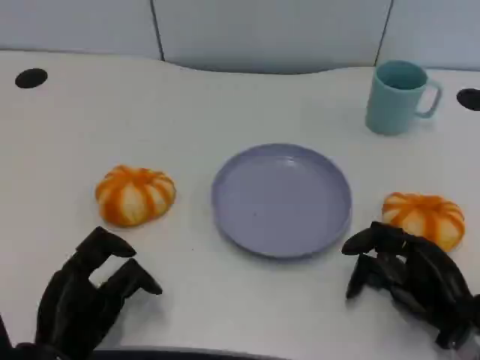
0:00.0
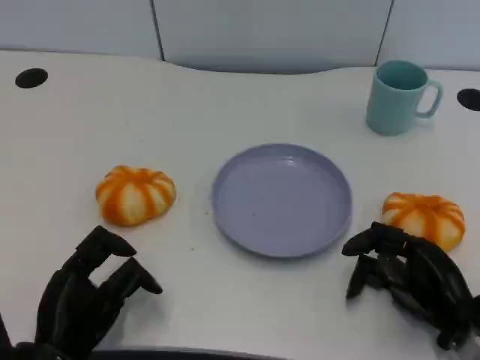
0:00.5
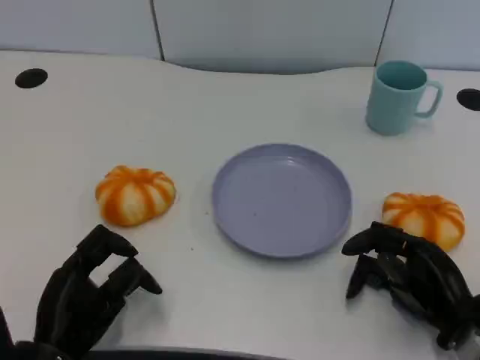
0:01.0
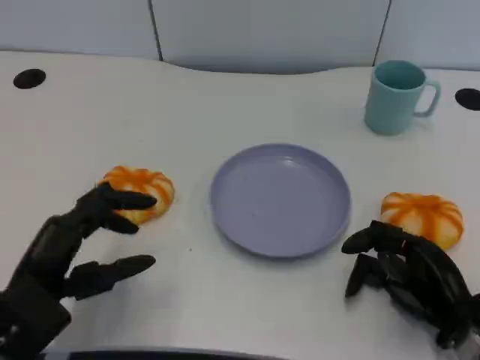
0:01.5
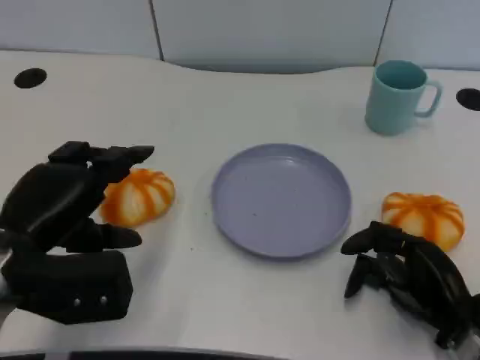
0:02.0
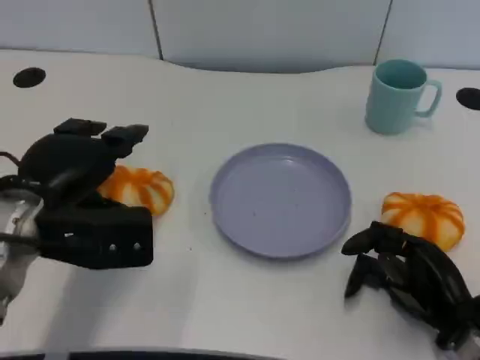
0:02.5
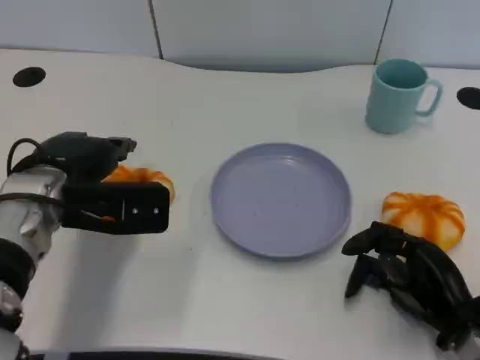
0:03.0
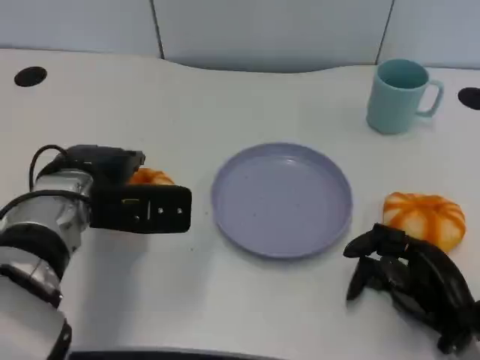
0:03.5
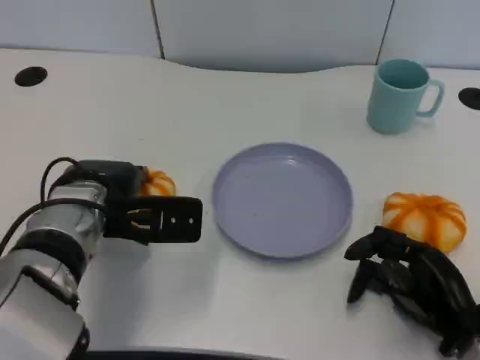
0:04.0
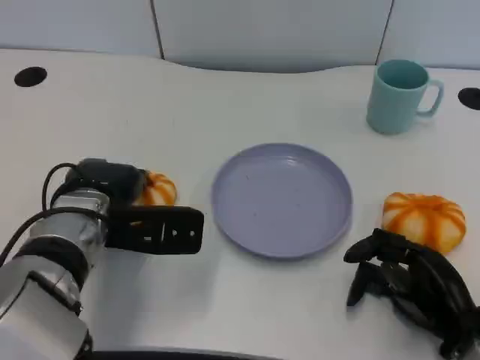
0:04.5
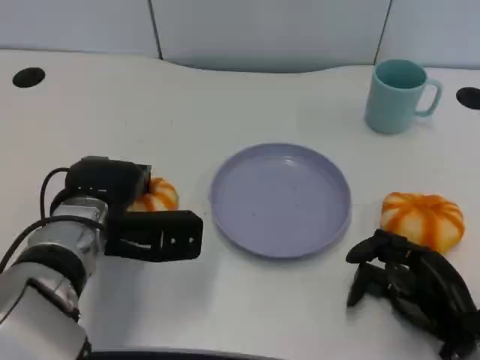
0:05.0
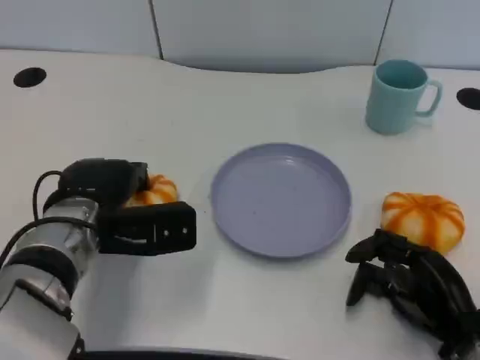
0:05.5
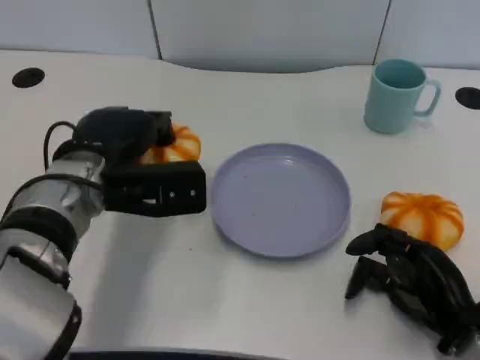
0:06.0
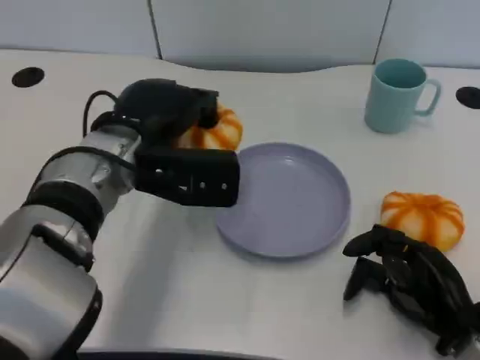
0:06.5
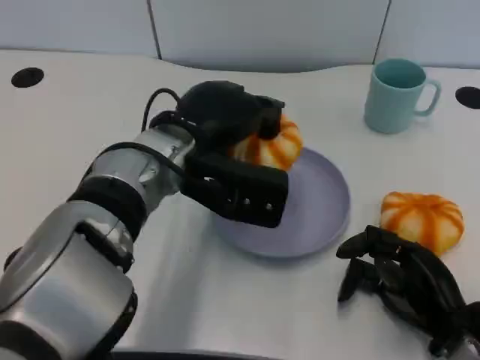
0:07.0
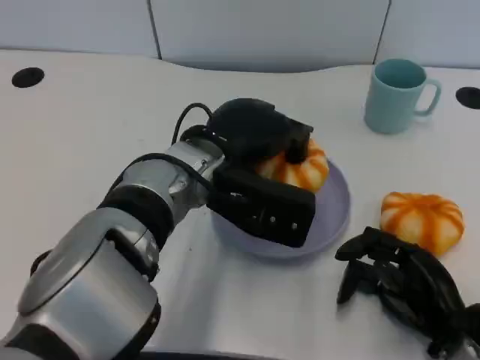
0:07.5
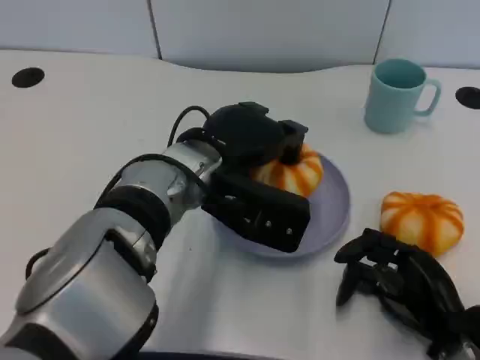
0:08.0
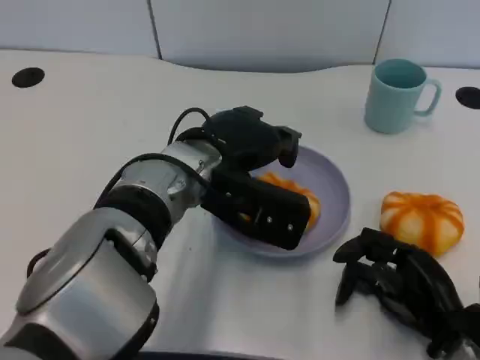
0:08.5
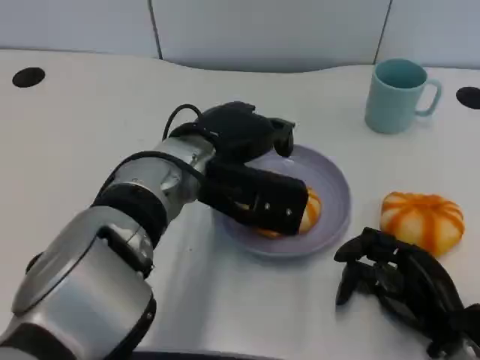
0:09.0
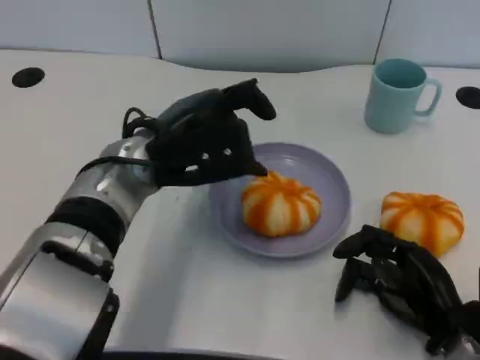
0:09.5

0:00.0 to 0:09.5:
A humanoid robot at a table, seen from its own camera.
Task of the whole recording: Grasp the bread from the table and place it into the plate.
0:00.0 to 0:02.0: The left hand moves upward and forward, about 15 cm.
0:02.0 to 0:04.0: The left hand travels forward and to the right by roughly 10 cm.
0:04.0 to 0:05.5: There are only small adjustments of the hands.
0:05.5 to 0:07.5: The left hand heads to the right and upward, covering roughly 15 cm.
0:07.5 to 0:09.5: The left hand moves to the left, about 5 cm.

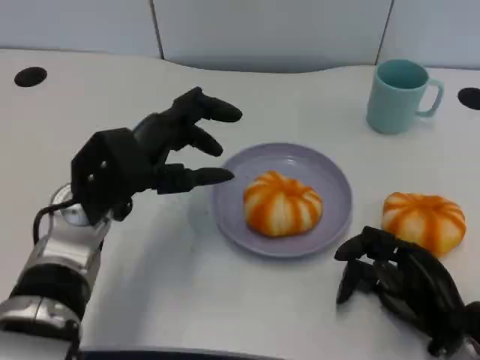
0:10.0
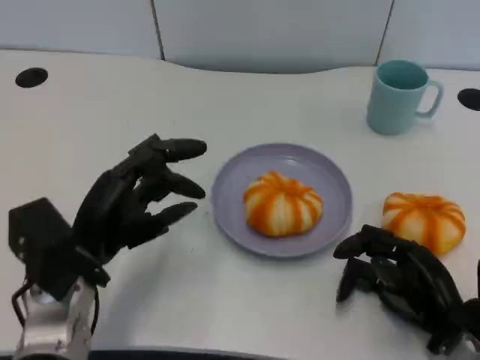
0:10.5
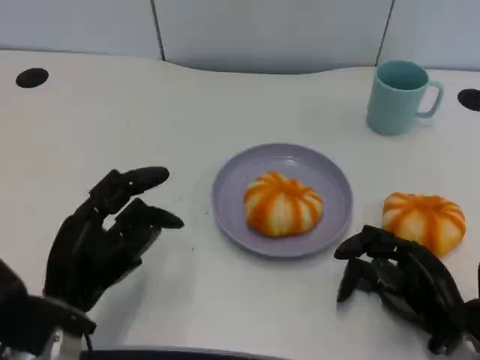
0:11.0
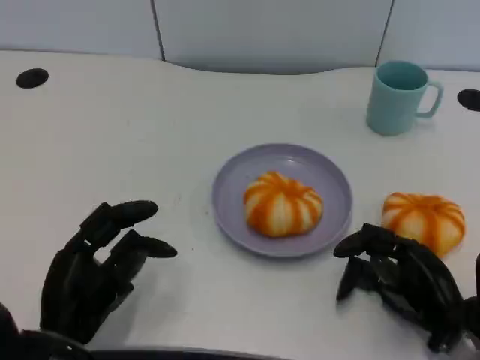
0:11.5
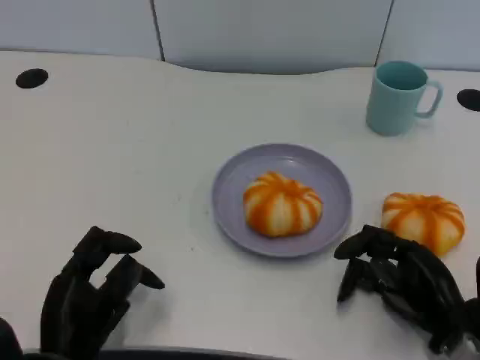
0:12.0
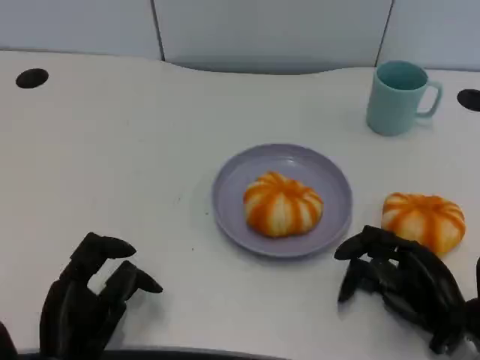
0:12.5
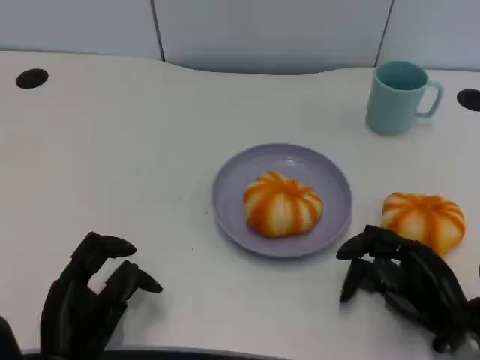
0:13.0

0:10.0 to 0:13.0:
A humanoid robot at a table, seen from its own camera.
Task of the whole recording: Grasp the bread from the table and place it into the plate.
0:10.0 to 0:11.5: The left hand shifts roughly 15 cm backward and downward.
0:11.5 to 0:13.0: The hands move only a little.

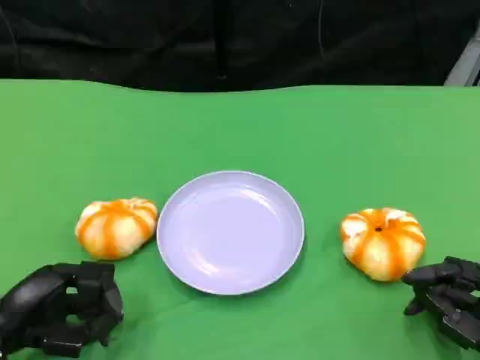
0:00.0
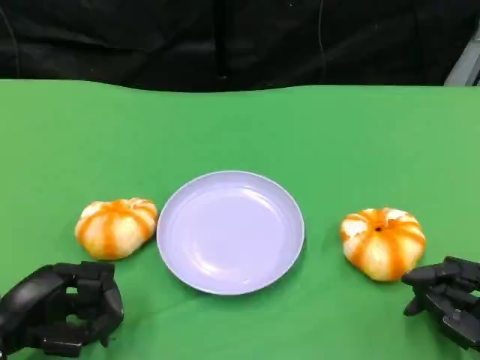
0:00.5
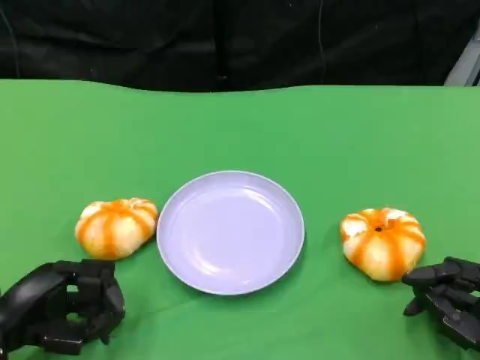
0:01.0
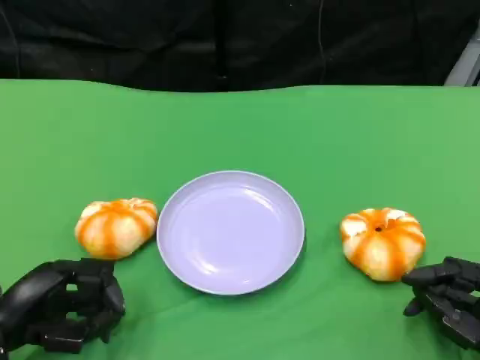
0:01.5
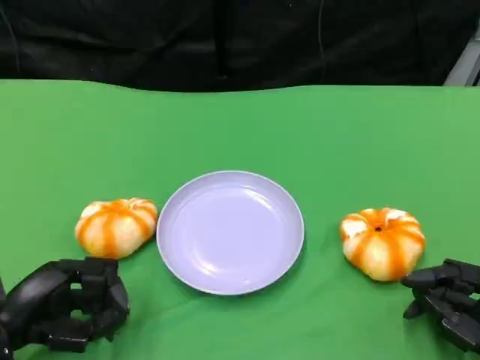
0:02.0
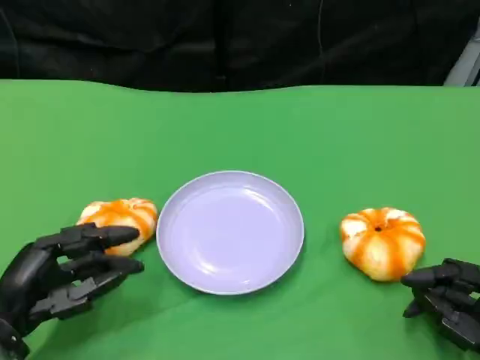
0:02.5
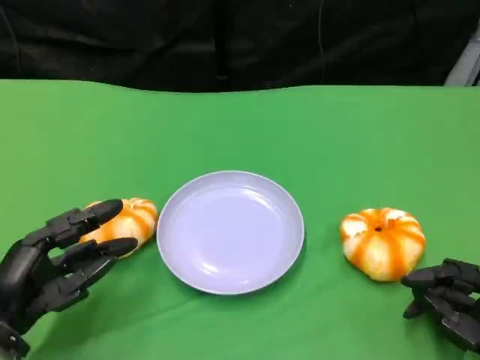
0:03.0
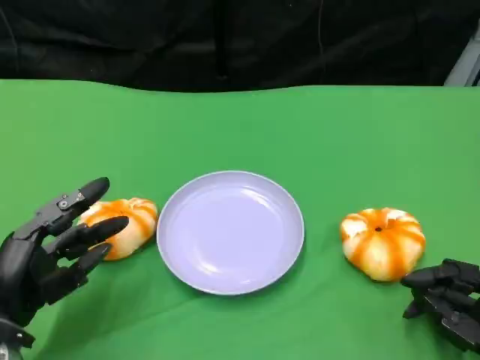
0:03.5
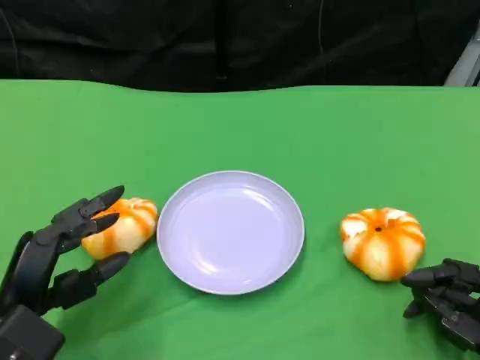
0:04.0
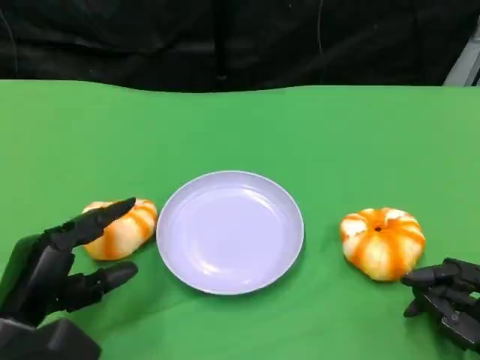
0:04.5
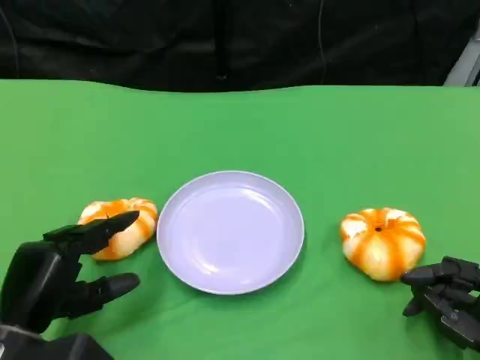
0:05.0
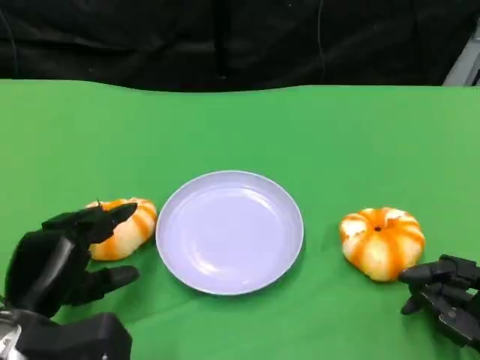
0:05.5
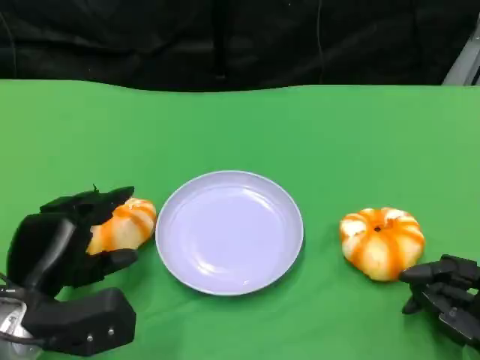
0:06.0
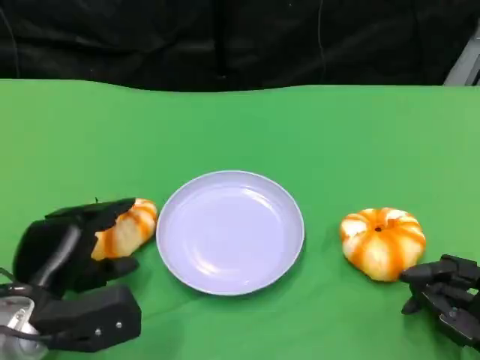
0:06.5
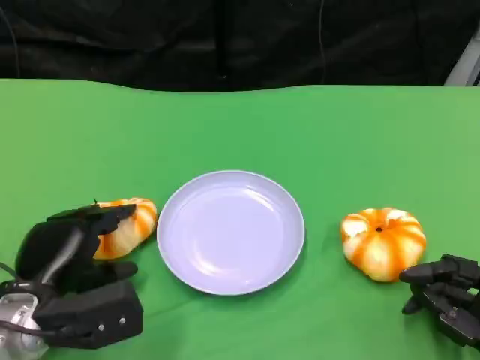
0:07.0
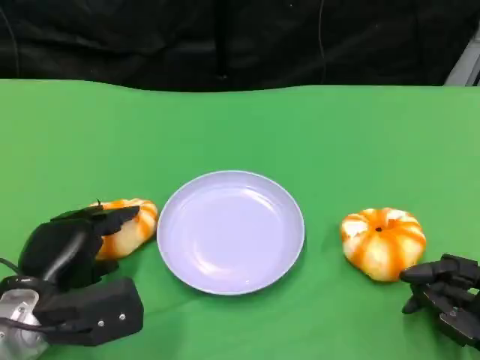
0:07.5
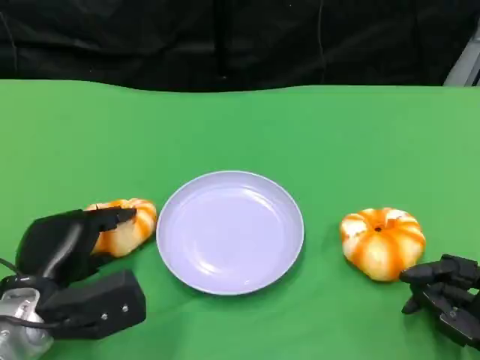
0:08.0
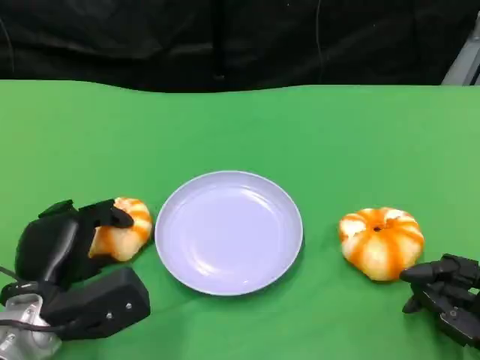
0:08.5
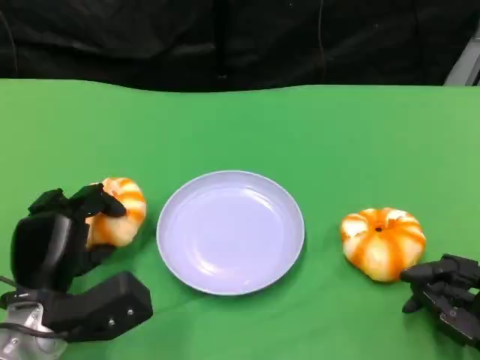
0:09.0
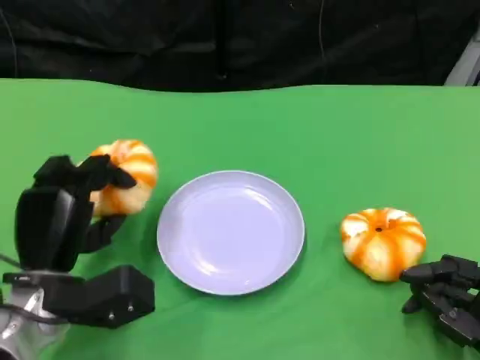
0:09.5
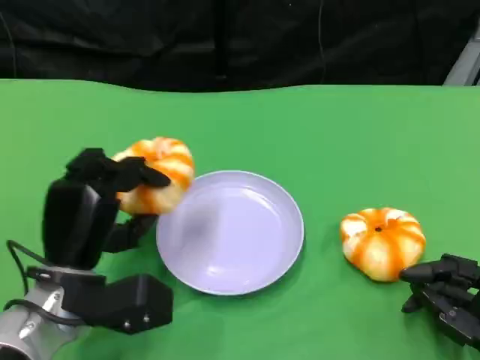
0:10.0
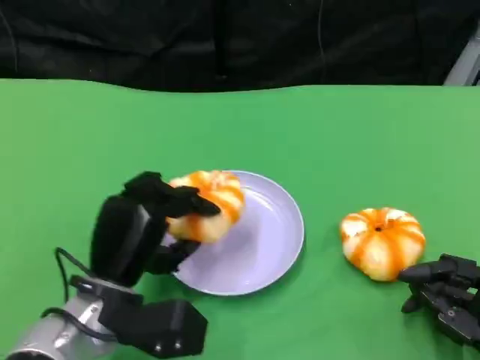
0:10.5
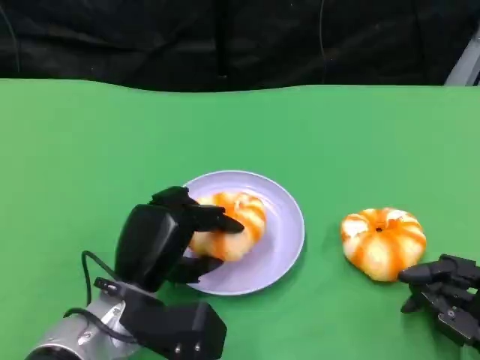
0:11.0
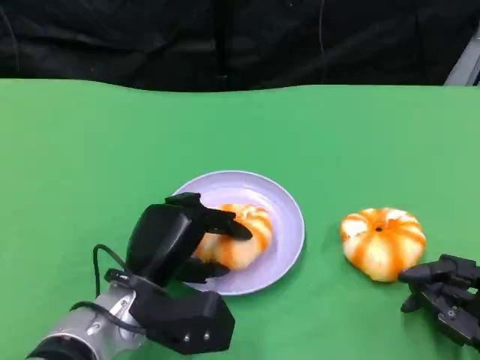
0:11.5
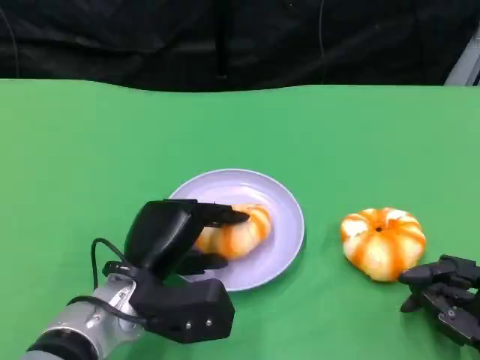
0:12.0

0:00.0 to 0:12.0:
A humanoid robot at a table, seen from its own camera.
Task of the whole recording: Grasp the bread from the table and place it into the plate.
0:00.0 to 0:02.0: Both hands stay put.
0:06.0 to 0:08.0: The hands move only a little.
0:10.0 to 0:12.0: The left hand heads to the right, covering some 5 cm.

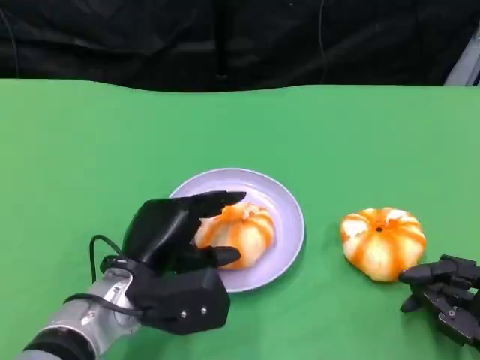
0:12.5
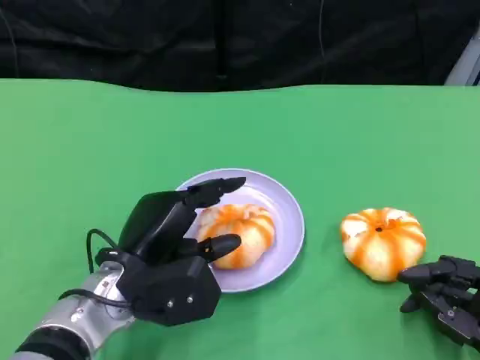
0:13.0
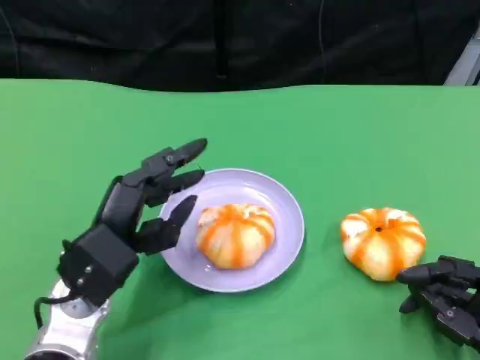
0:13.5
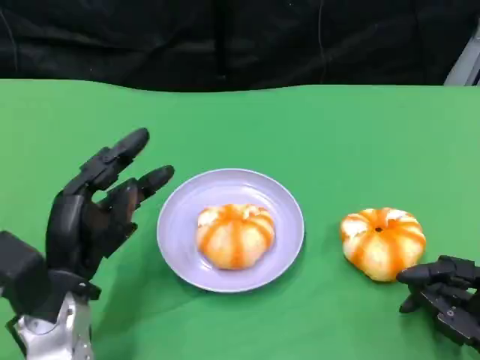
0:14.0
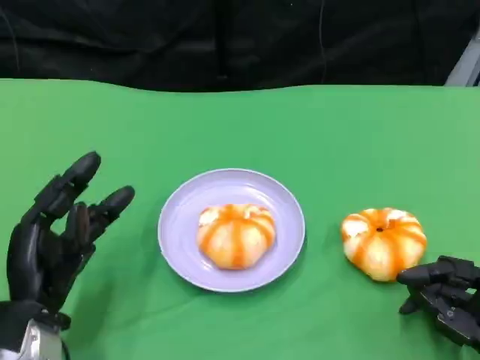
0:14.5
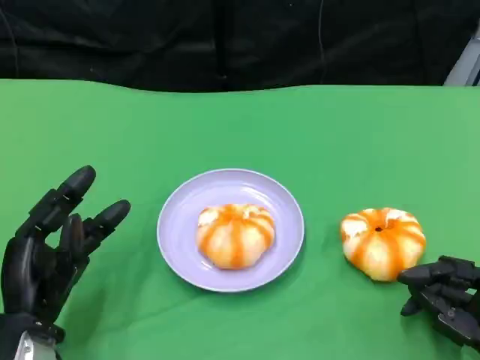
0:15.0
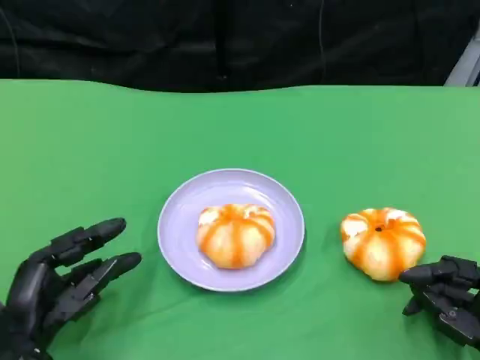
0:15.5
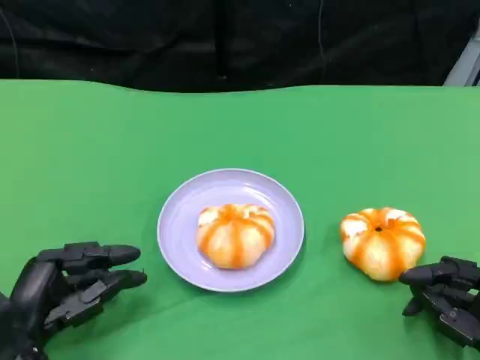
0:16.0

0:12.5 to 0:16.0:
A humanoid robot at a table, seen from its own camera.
Task of the whole recording: Grasp the bread from the table and place it into the plate.
0:12.5 to 0:14.5: The left hand moves to the left, approximately 10 cm.
